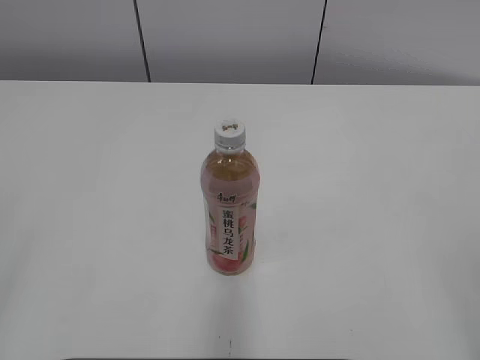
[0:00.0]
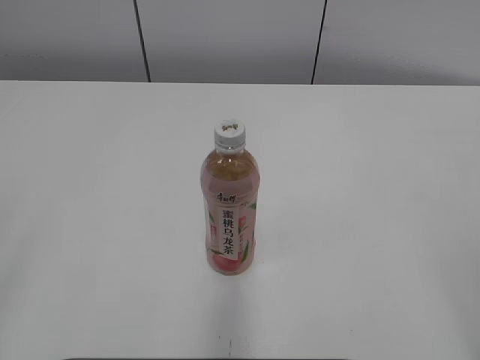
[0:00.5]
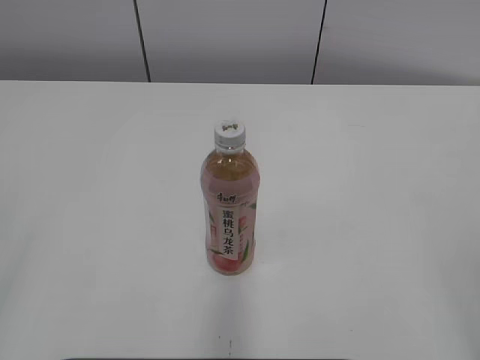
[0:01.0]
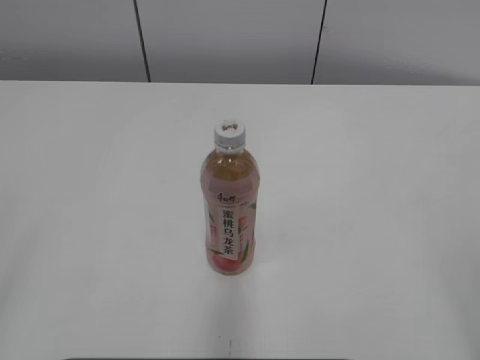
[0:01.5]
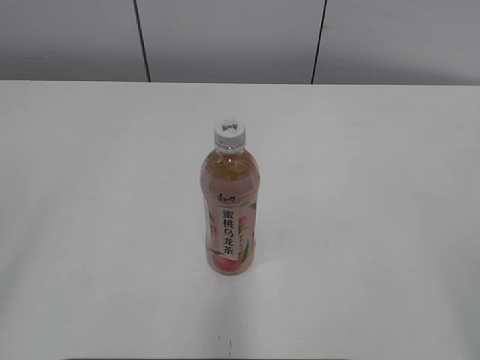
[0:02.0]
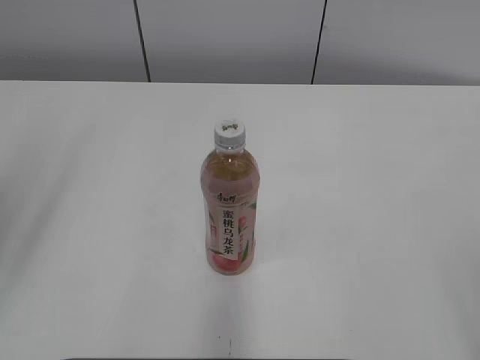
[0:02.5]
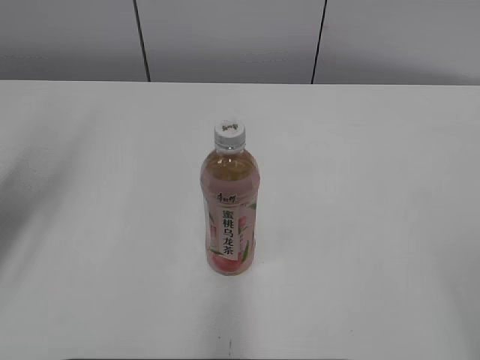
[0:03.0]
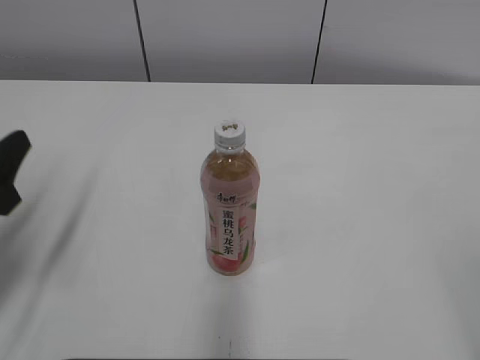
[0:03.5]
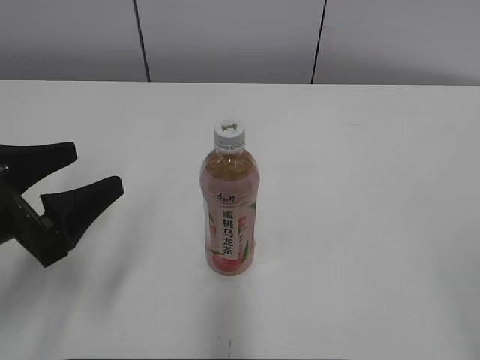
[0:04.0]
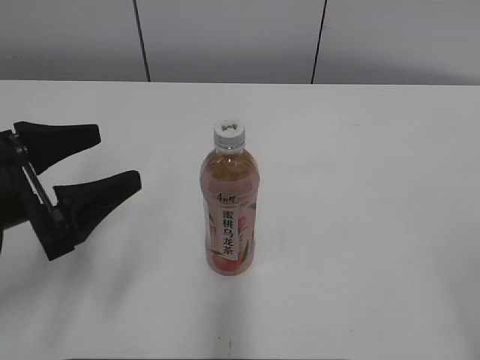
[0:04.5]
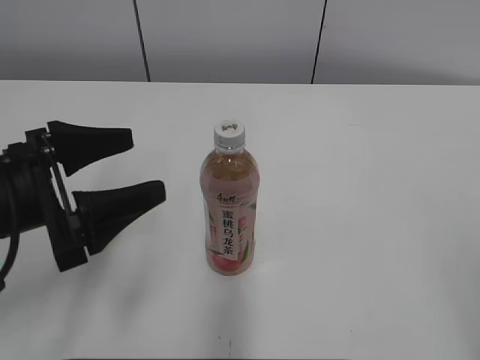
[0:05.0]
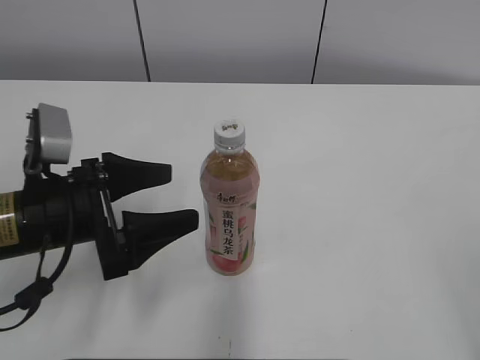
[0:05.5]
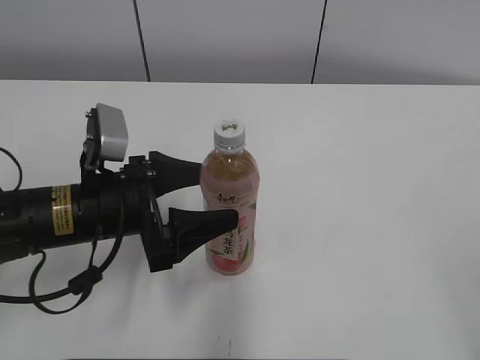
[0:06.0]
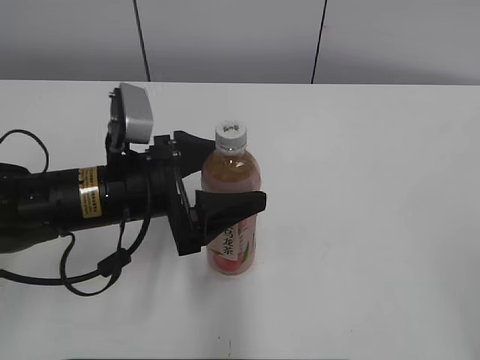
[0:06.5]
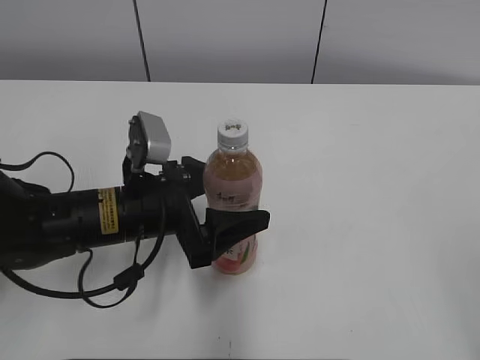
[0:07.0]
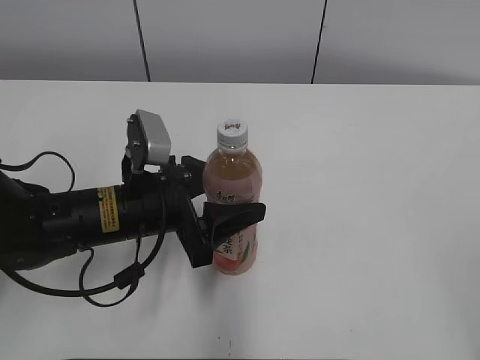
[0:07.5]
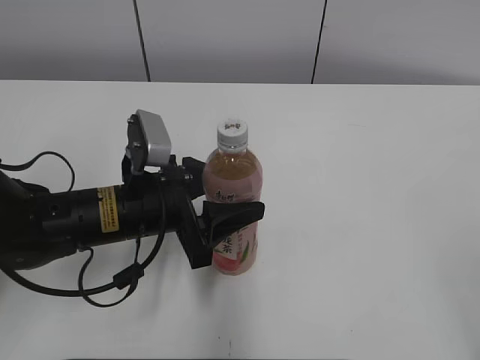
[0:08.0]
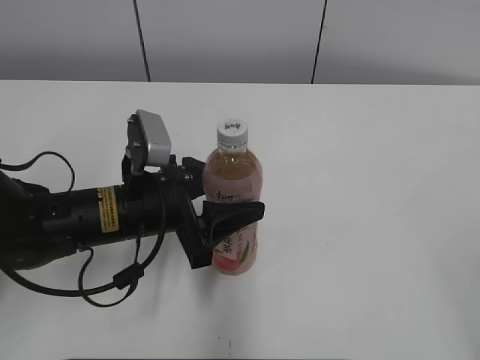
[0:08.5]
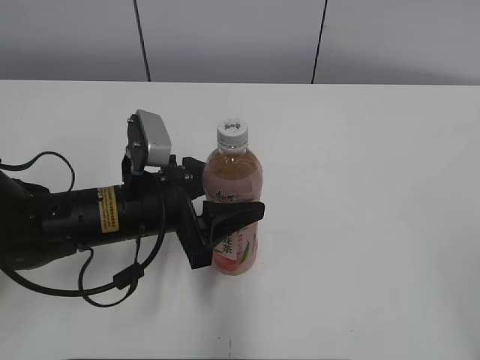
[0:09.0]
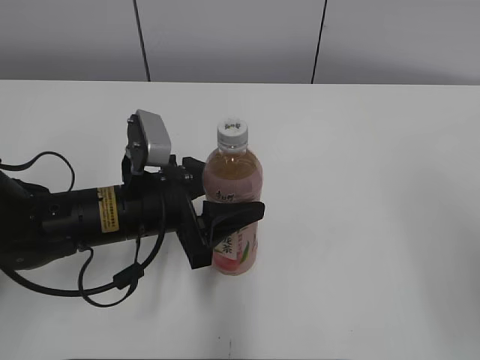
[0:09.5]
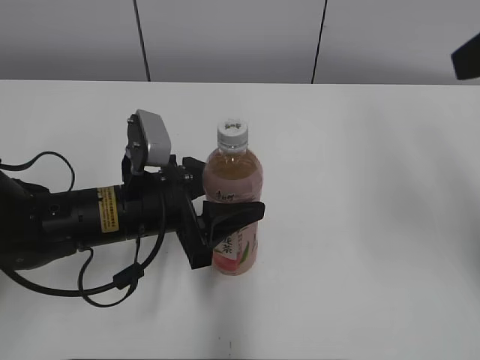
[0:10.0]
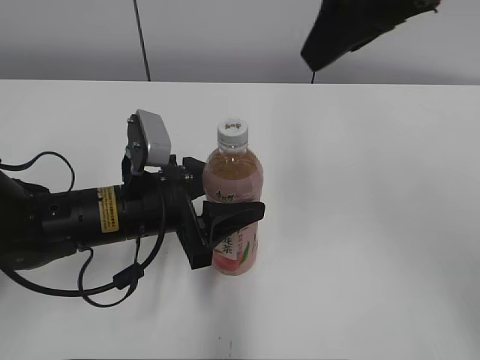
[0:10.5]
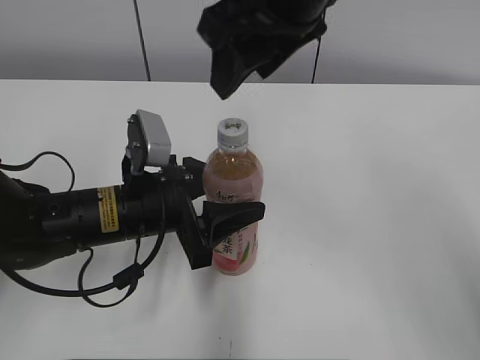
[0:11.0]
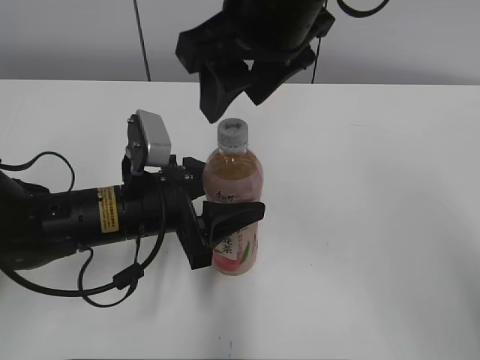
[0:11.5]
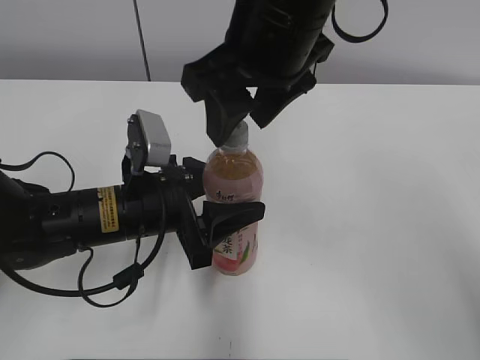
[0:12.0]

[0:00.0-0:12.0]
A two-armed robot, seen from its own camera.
Step, 0:00.0 to 0:07.5: Grab the Peach Oolong Tea with the left hand.
0:02.0 to 0:04.0: The left gripper shifts about 25 cm forward and downward.
0:04.0 to 0:06.0: The left gripper goes approximately 10 cm to the right and forward.
0:06.0 to 0:08.0: The left gripper closes up.
0:08.0 to 0:10.0: The right gripper heads forward and upward, covering roughly 25 cm.
0:10.0 to 0:12.0: The right gripper is displaced to the left by about 20 cm.

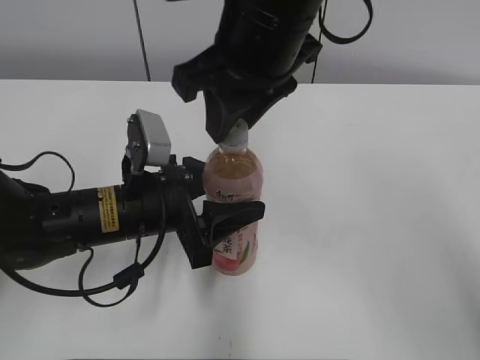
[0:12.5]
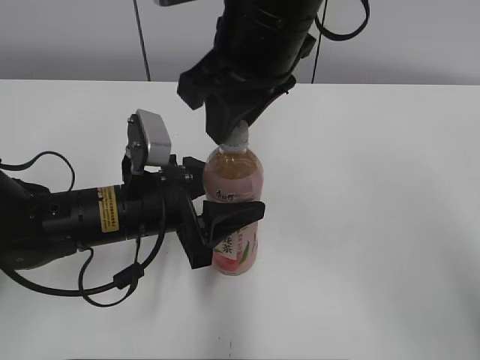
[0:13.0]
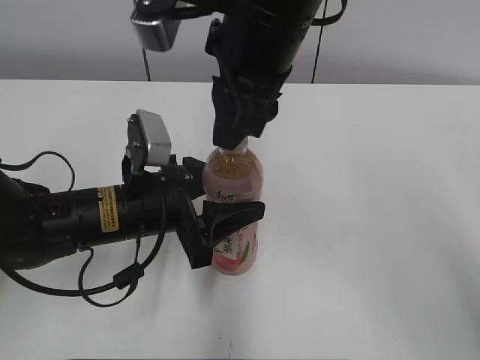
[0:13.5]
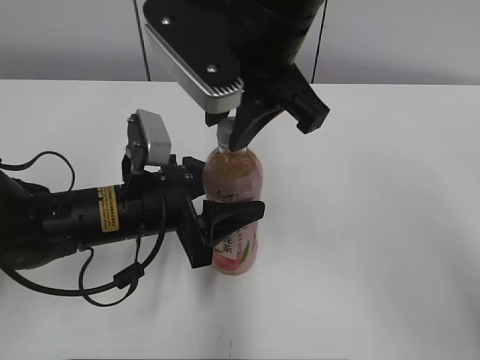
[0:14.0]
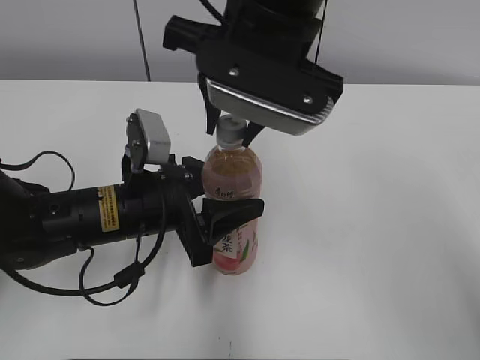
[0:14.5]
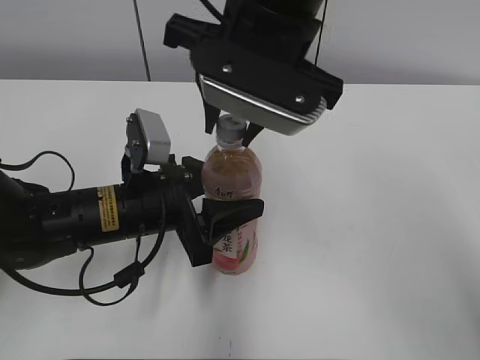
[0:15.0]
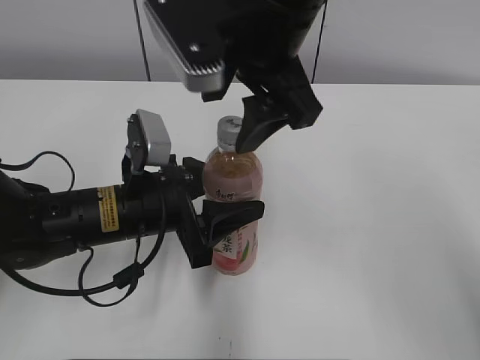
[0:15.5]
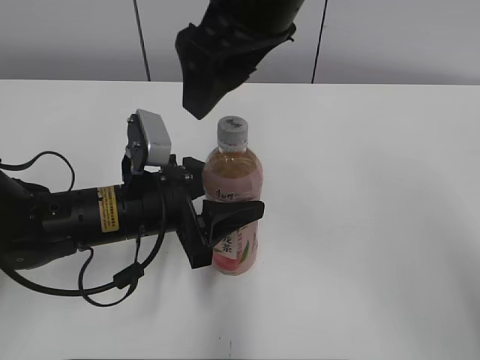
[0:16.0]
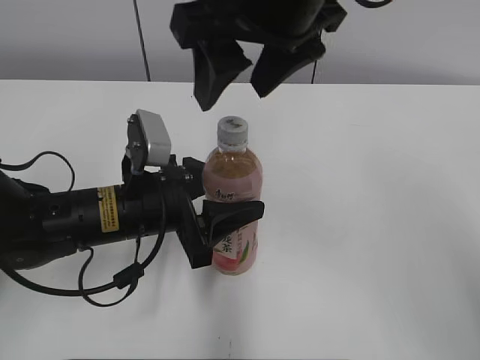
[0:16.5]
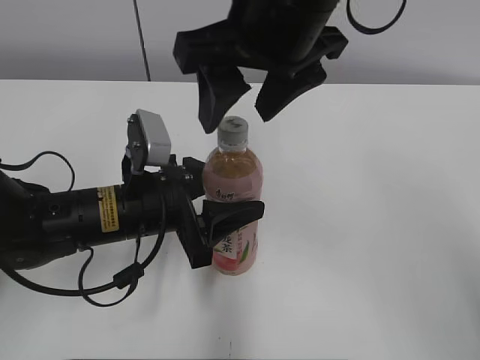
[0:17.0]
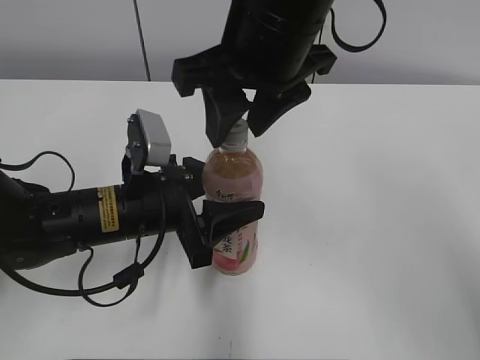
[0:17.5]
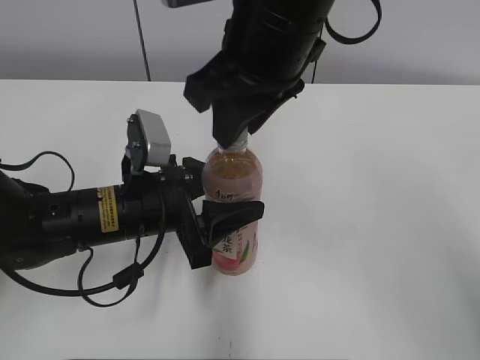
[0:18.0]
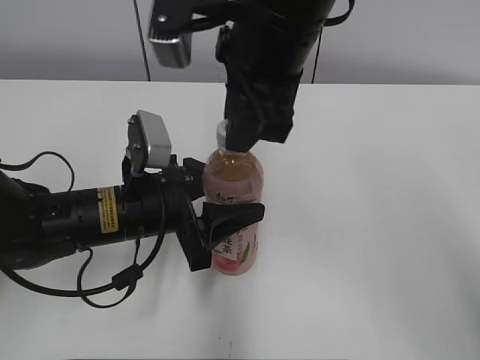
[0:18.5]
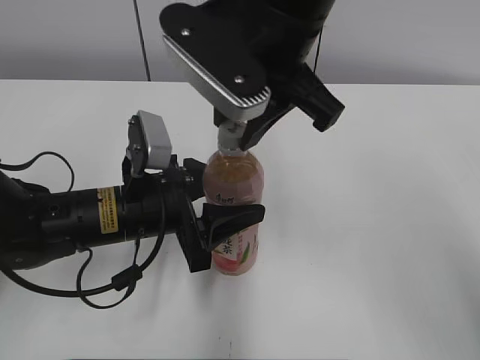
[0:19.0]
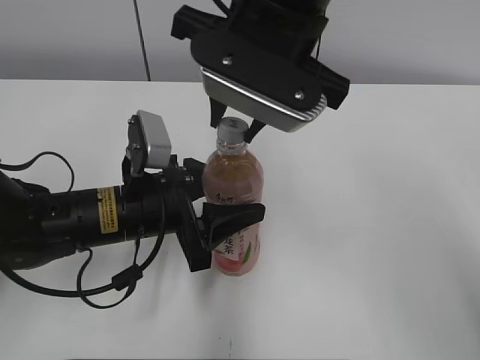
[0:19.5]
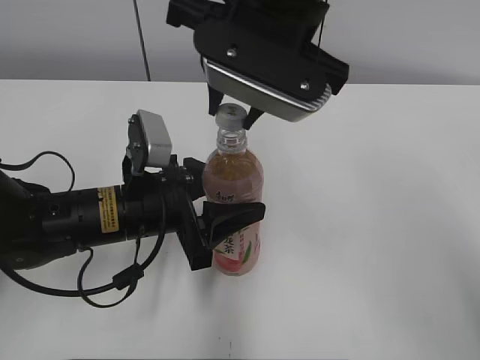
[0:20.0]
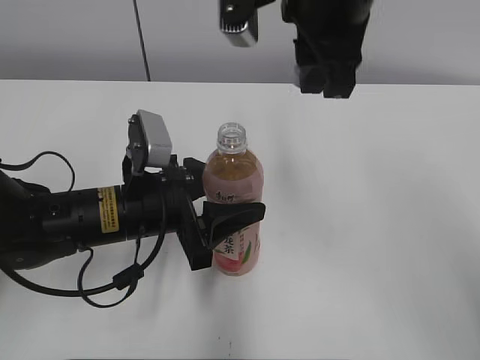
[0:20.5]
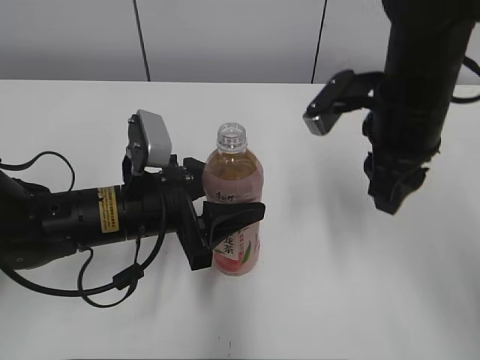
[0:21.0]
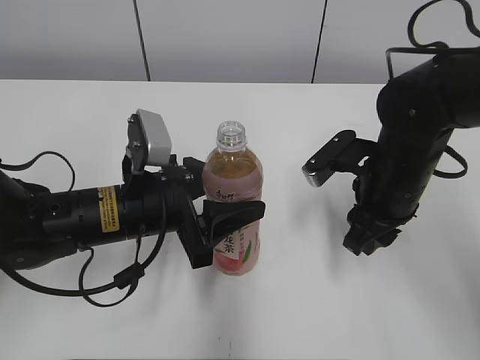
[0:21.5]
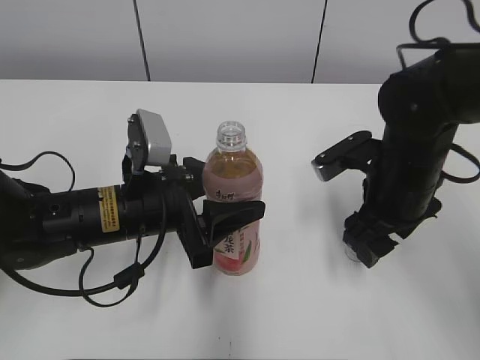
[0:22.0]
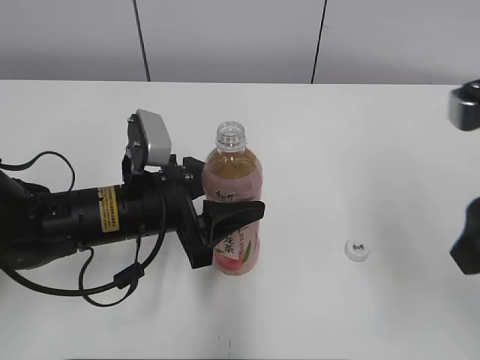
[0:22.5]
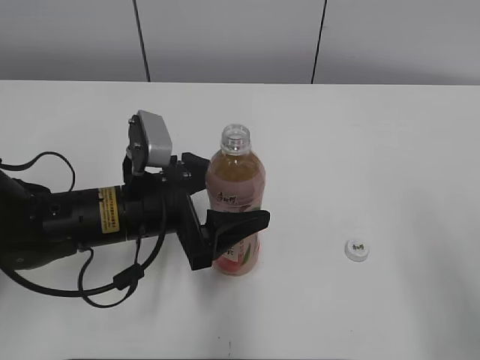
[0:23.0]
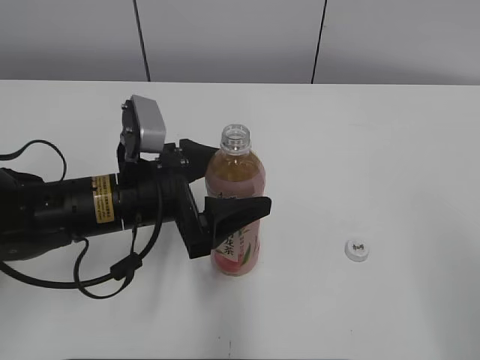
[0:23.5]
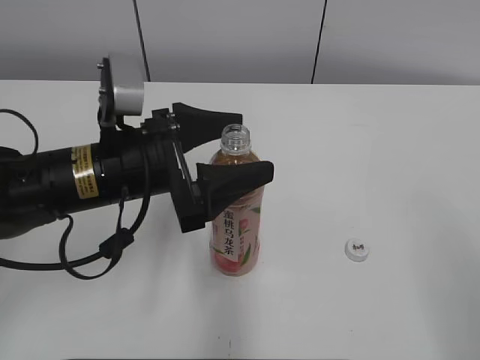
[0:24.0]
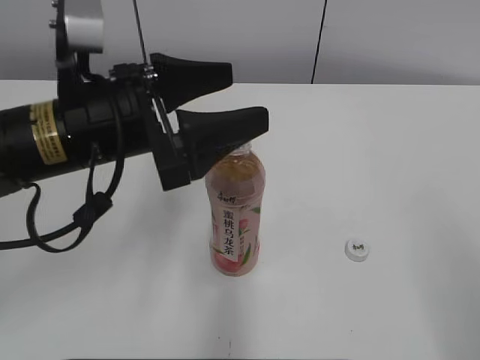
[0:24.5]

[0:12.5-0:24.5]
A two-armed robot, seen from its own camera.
Step, 0:20.0 to 0:21.5: Place the bottle cap on the right.
0:14.5 to 0:16.5: The right gripper opens.
0:16.5 to 0:18.5: The right gripper closes its fingers.
0:18.5 to 0:20.5: The right gripper changes place by roughly 5 cm.
0:20.5 to 0:22.5: The right gripper goes about 20 cm to the right and backward, goes downward and returns, roughly 20 cm each way, and opens its fingers.
0:22.5 to 0:24.5: The left gripper goes about 10 cm upward, and opens up; the right gripper travels backward and to the right by some 20 cm.

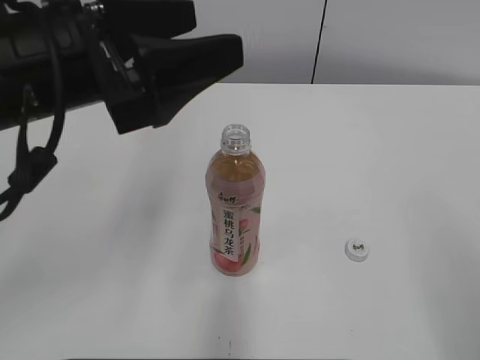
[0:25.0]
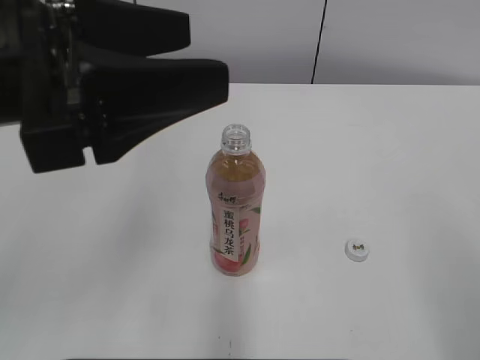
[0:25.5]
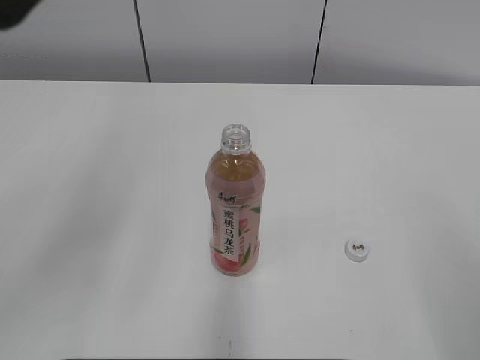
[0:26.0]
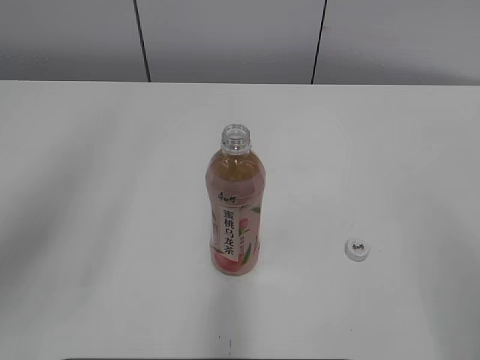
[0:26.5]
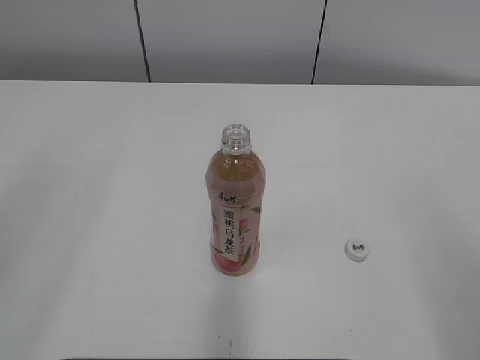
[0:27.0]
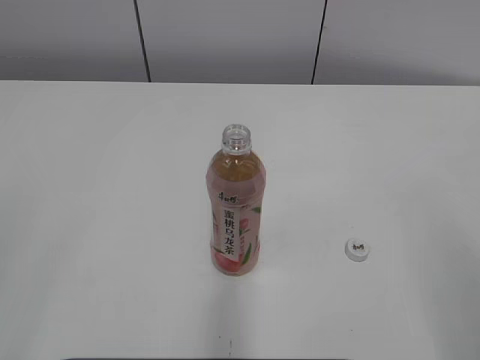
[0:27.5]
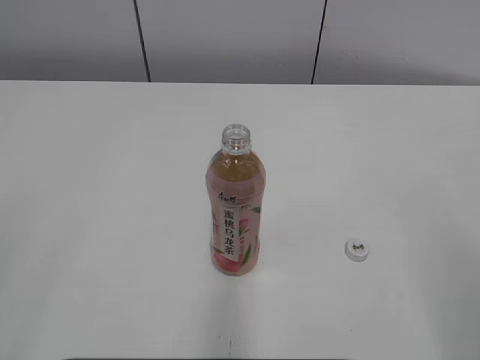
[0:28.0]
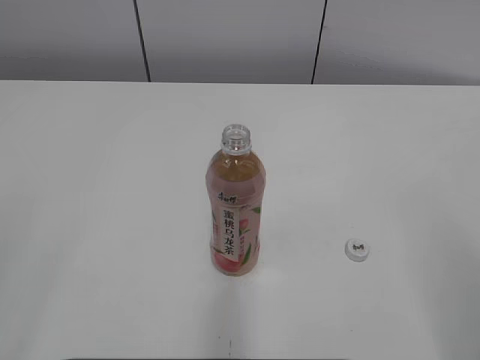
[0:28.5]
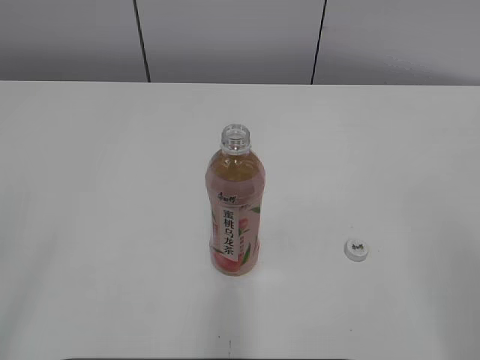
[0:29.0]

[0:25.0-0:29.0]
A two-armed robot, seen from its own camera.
0:25.0 to 0:27.0: The left gripper travels backward, to the left and upward by some 20 cm.
